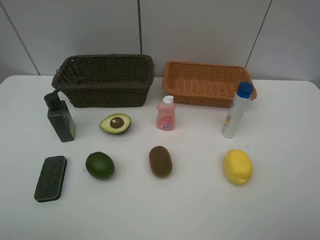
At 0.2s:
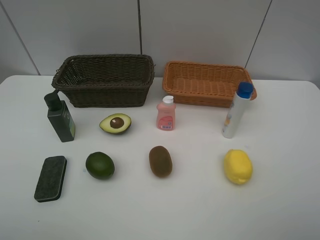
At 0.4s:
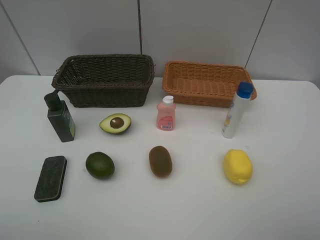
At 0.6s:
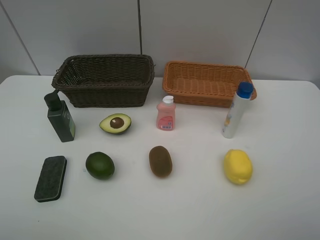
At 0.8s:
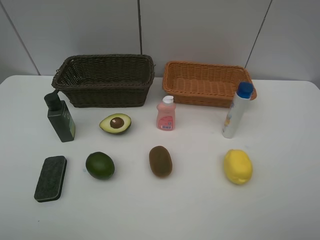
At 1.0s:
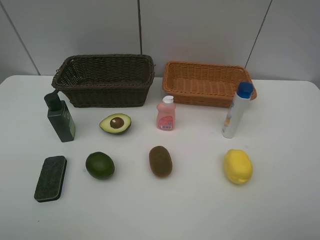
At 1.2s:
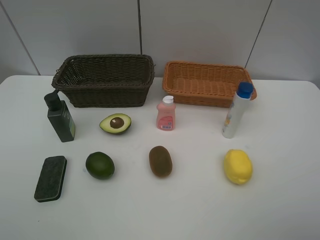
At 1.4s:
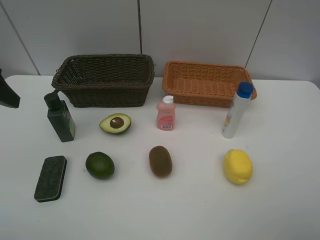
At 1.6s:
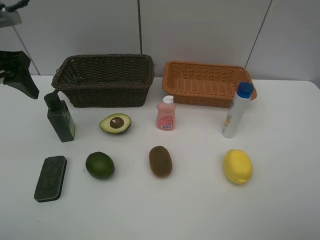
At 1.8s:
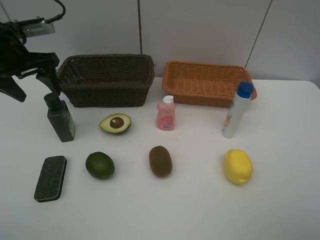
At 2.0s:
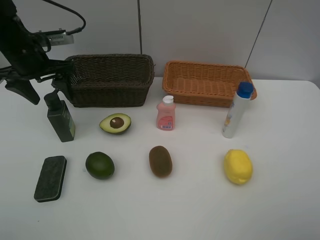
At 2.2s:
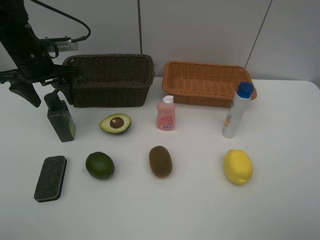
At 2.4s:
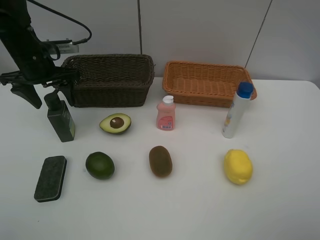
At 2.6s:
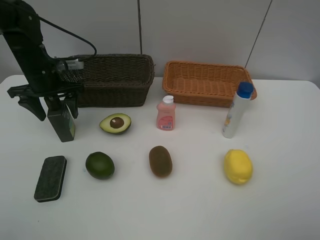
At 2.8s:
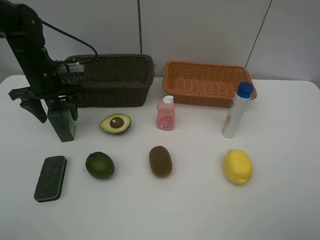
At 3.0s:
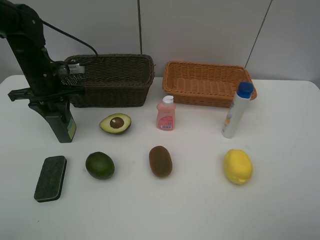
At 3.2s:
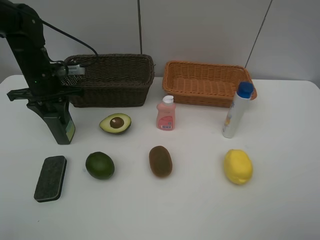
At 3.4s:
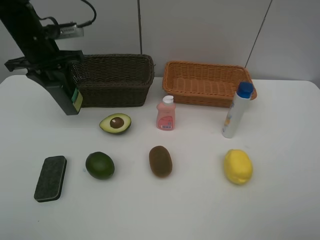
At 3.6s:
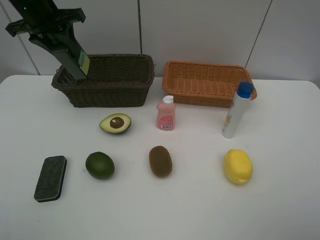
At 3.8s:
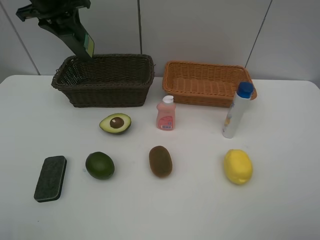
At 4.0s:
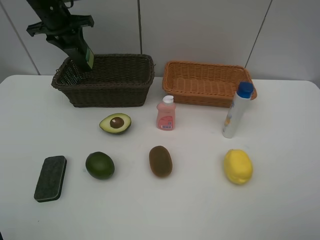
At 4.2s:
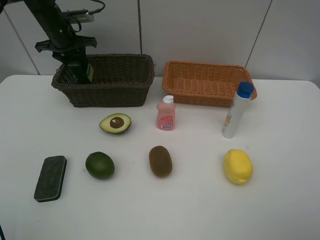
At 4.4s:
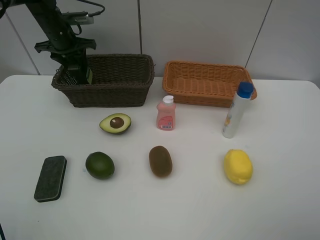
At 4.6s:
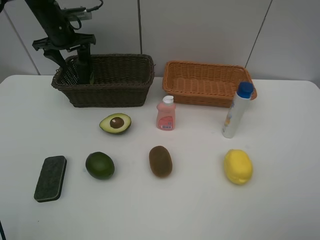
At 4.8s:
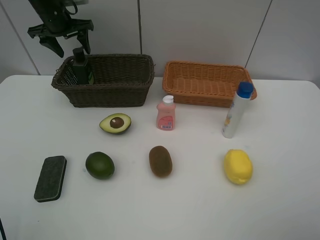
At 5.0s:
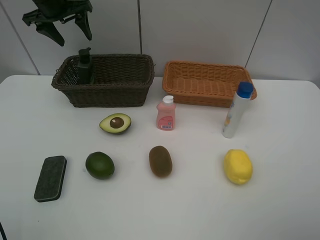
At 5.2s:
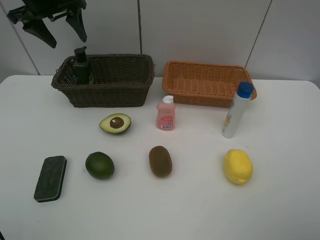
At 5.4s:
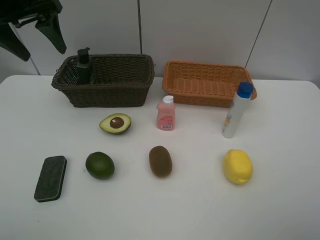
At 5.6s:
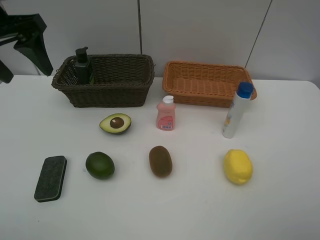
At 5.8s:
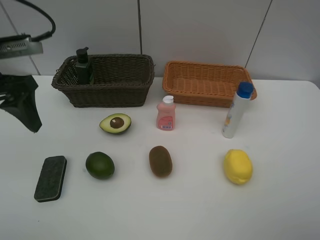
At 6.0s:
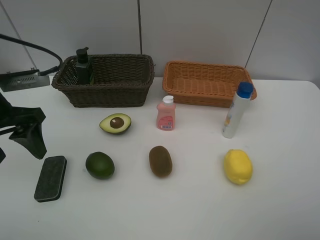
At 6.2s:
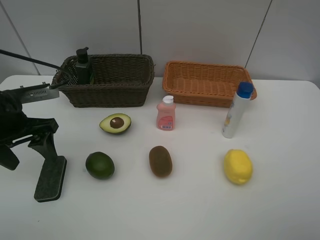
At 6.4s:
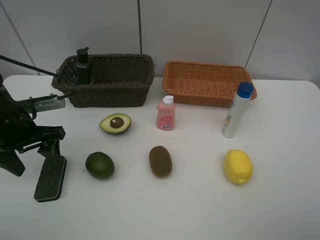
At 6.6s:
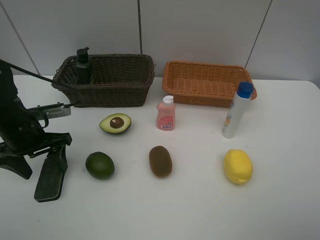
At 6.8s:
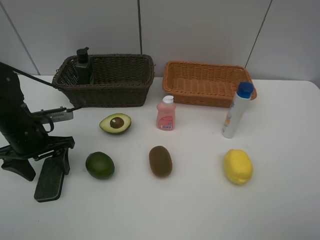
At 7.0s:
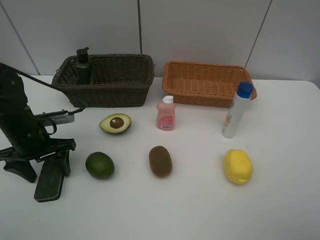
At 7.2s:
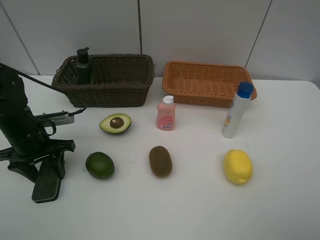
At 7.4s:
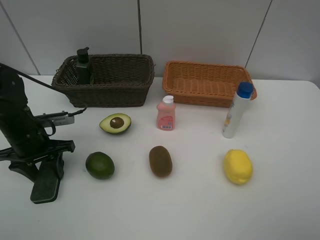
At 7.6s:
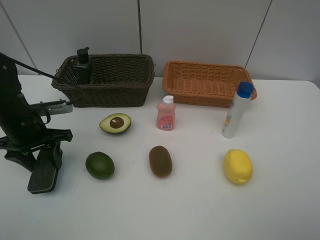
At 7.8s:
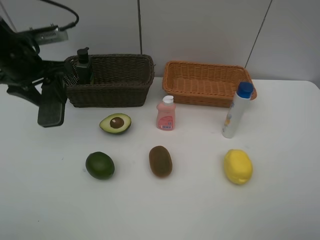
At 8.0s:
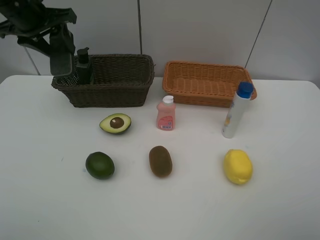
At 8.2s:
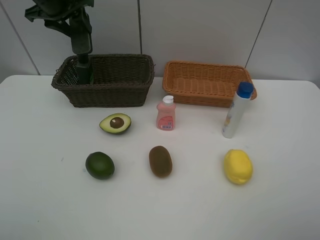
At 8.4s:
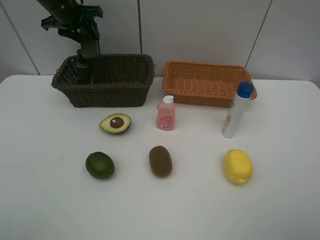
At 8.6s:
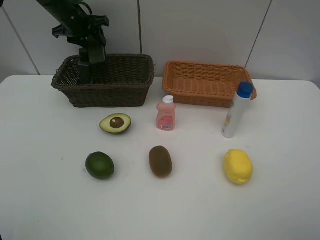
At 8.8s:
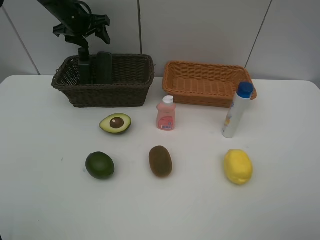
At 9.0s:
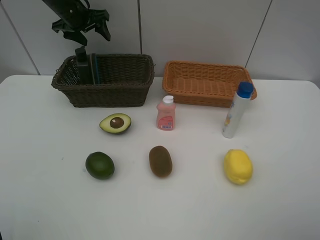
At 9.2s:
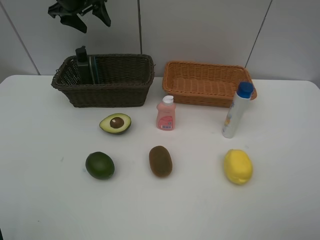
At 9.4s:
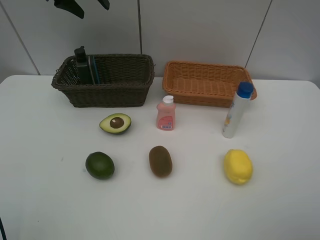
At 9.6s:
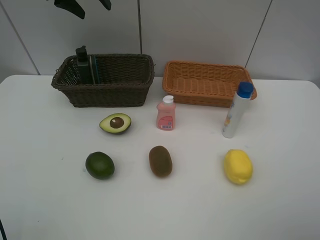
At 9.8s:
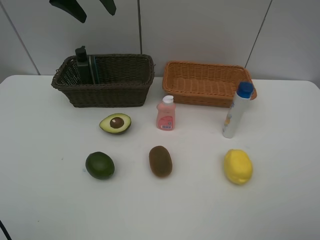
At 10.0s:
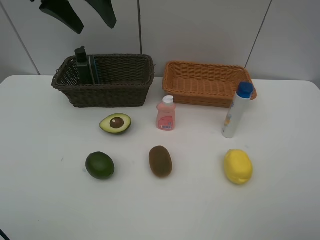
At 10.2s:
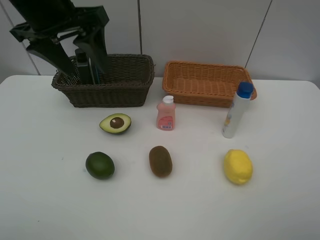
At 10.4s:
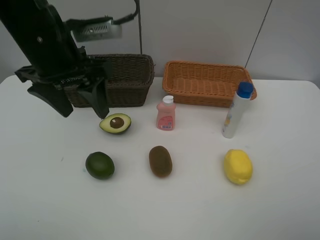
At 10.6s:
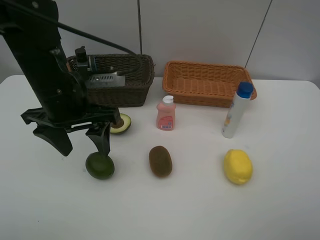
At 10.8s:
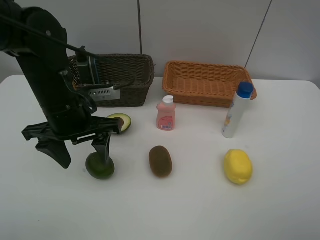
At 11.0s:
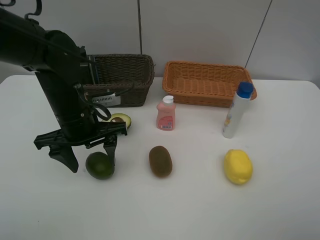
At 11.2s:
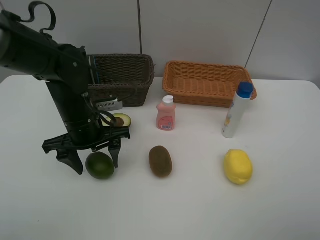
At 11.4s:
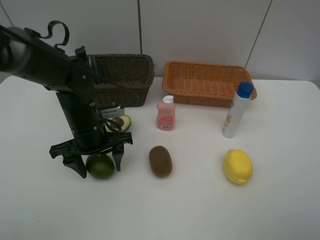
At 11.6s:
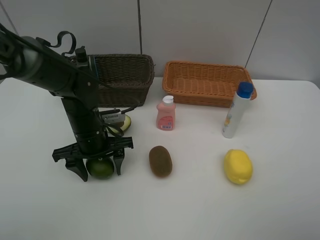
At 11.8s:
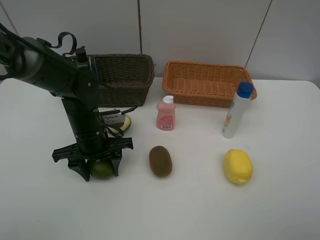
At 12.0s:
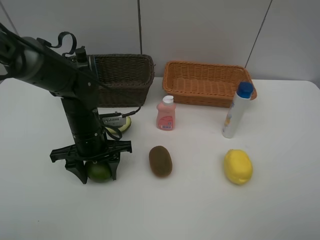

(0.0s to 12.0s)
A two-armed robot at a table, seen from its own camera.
Task of the whole recording: Place multiple objects separately in different baskets.
Step, 0.0s - 3.2s: Pick up the hard facial cleanser with left gripper.
Step, 3.4s - 4.8s: Place the hard facial cleanser in the dark basket with left gripper.
Step, 5.0s - 7.6s: Pick up blackboard eraser with left gripper.
Step, 7.8s - 8.8s: Place the blackboard eraser in the dark basket with left gripper.
0.0s - 1.6s: The left gripper goes roughly 30 cm forward.
1.6s - 3.0s: The left gripper is displaced downward and forward by roughly 15 cm, and closes.
3.0s - 4.4s: The left gripper moves forward, some 15 cm, travels upward and back again, roughly 15 cm each way, and opens.
4.4s - 6.0s: The left gripper is displaced backward by some 30 cm, and opens.
6.0s - 7.6s: The left gripper is displaced downward and forward by roughly 10 cm, and closes.
7.6s - 9.0s: The left gripper moves forward and upward, some 30 cm, and opens its fingers.
9.0s - 10.4s: The left gripper moves backward, some 25 cm.
10.4s - 12.0s: The left gripper travels downward by roughly 15 cm.

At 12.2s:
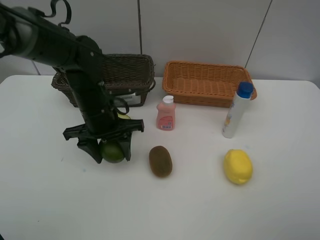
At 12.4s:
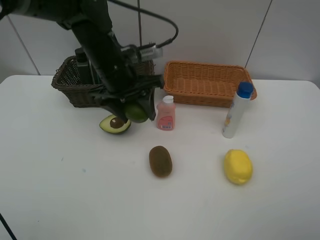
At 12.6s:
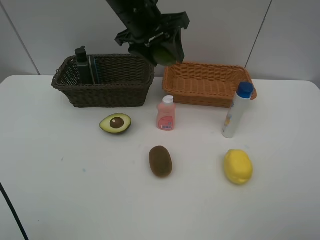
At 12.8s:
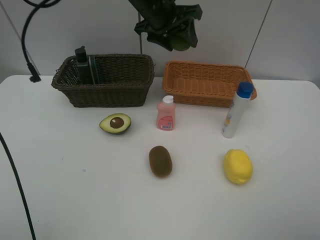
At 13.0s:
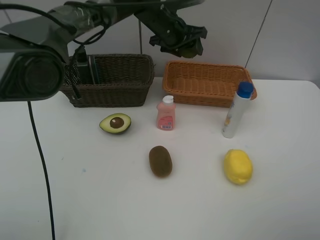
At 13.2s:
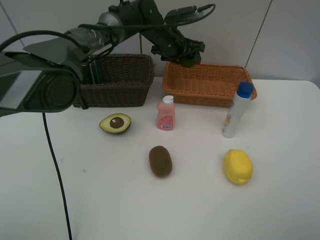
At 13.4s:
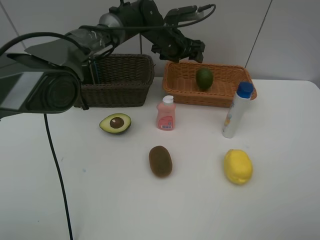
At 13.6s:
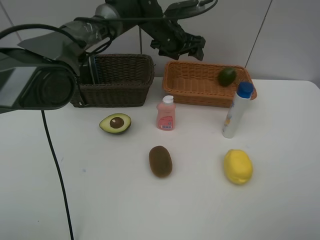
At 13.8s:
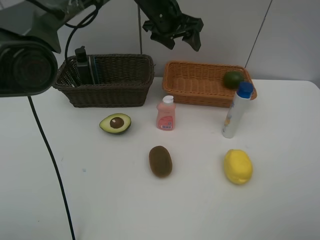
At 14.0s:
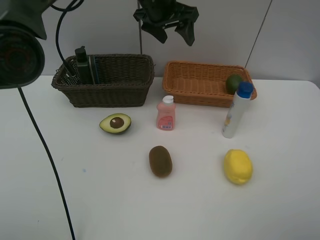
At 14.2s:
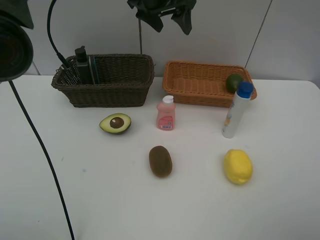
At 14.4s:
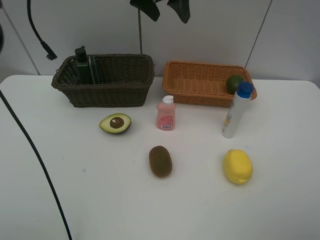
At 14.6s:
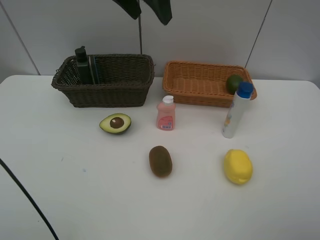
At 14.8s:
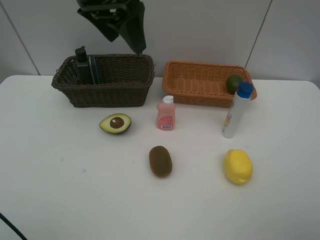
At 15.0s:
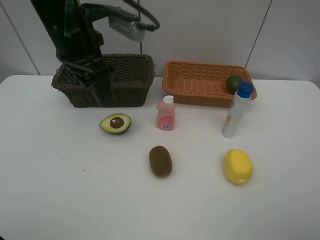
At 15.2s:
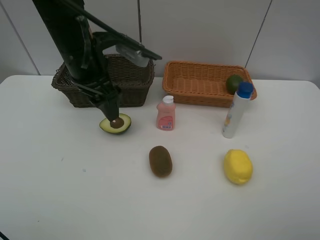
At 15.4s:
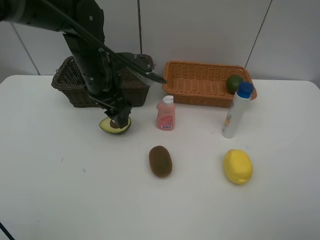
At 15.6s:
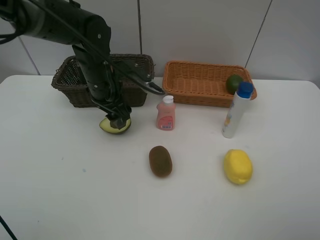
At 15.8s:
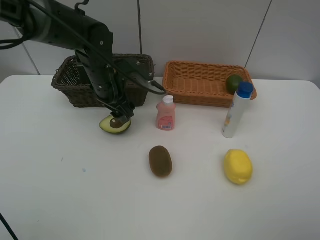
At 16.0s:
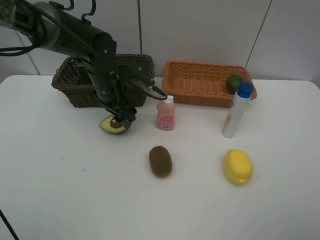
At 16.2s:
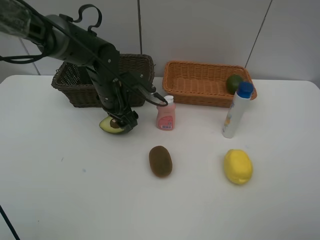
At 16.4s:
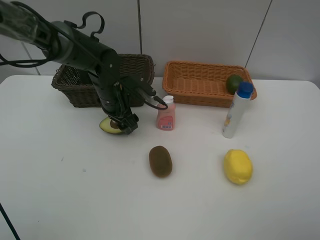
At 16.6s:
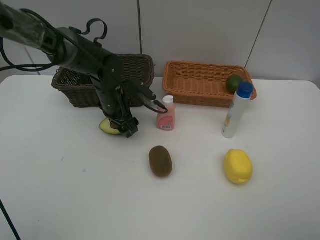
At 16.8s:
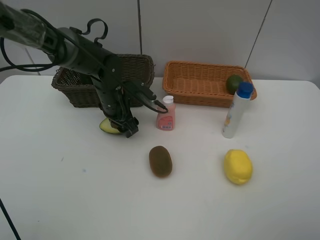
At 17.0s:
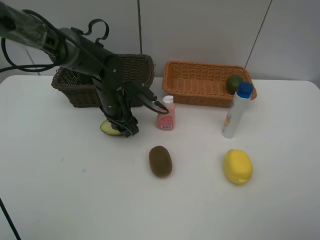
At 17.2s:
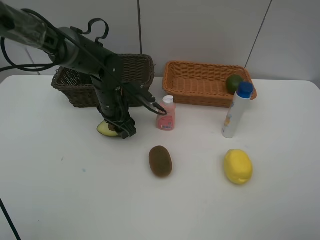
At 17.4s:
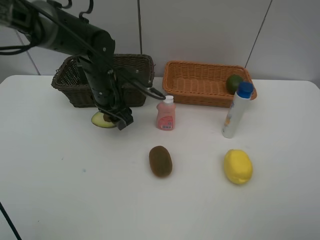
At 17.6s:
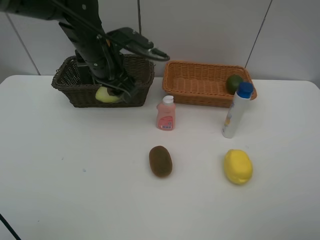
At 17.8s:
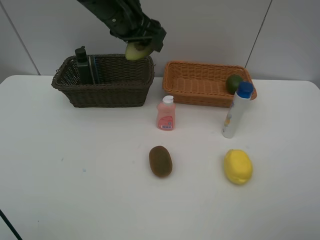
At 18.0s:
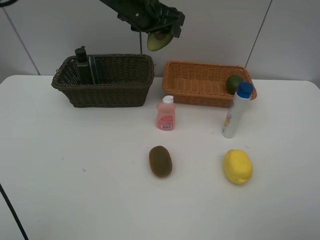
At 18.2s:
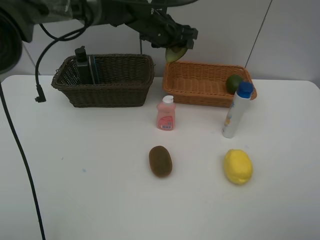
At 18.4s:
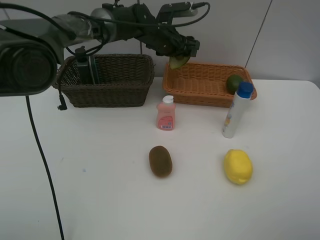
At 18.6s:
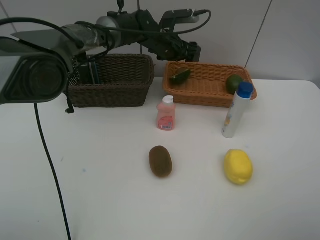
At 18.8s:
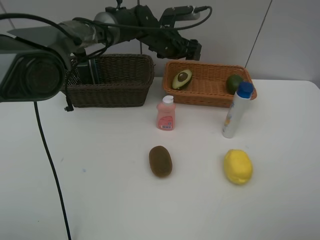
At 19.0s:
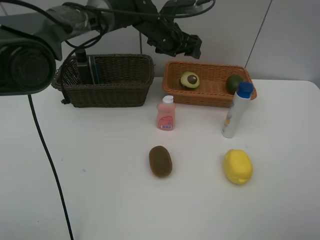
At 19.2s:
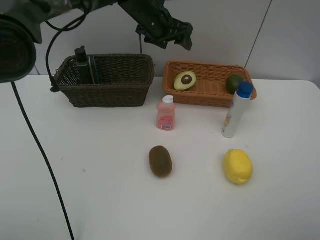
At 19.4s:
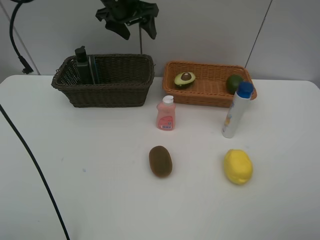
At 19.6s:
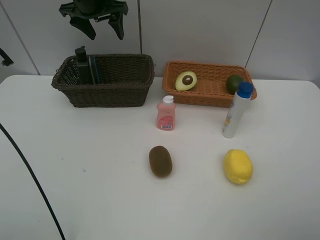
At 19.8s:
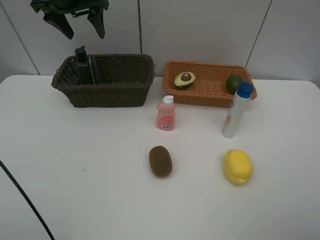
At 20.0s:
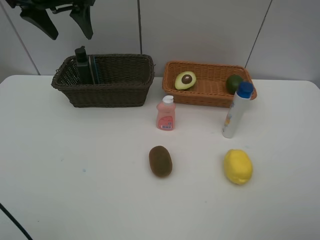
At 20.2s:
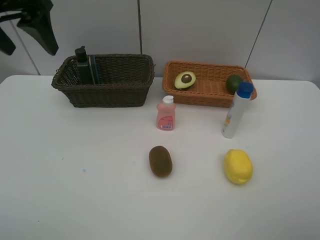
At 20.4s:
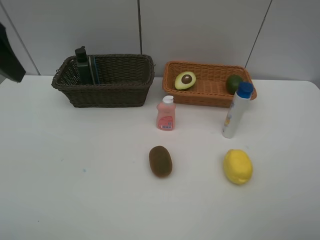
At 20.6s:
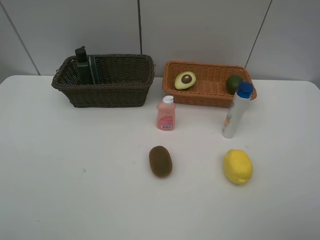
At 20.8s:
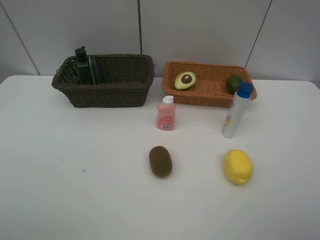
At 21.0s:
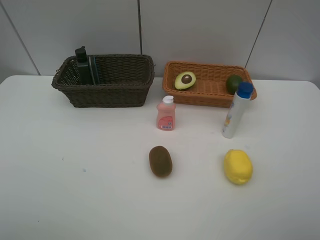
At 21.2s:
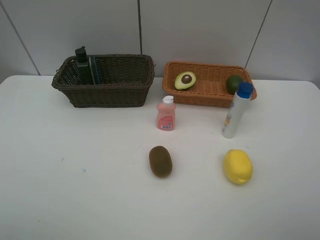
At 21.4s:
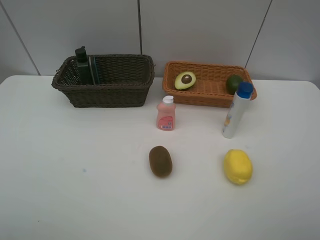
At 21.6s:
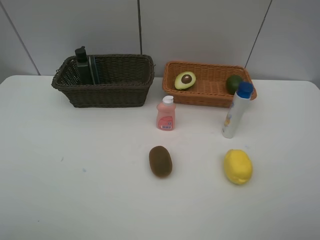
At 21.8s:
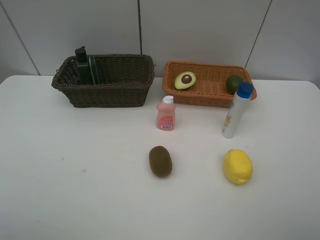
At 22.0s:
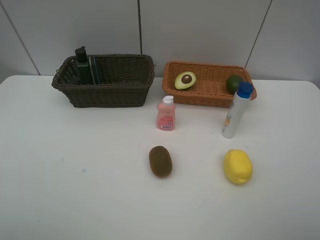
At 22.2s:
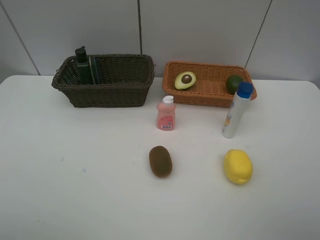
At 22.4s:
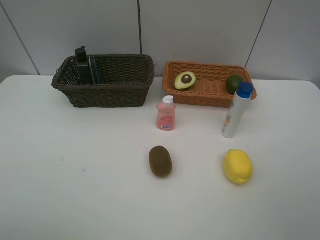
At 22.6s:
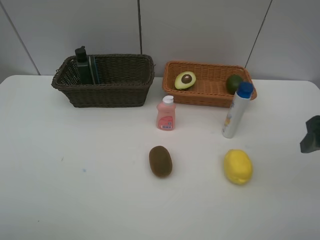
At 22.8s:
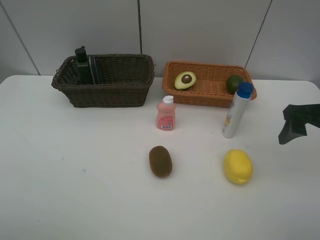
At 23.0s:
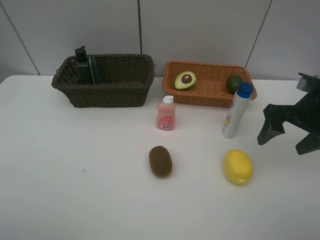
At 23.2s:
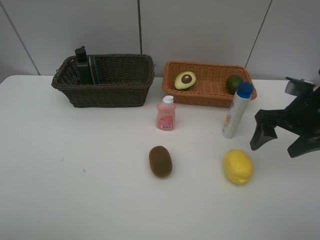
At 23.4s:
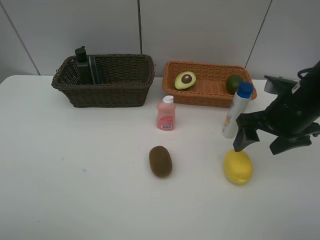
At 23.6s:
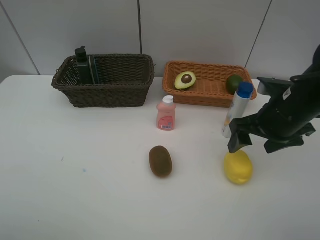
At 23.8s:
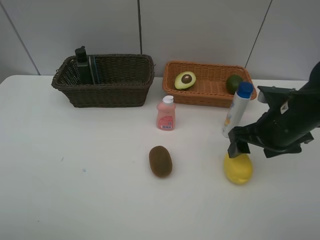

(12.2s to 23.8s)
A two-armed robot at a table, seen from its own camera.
Task of the whole recording: Place multiple objects separately in different baskets.
Step, 12.2s - 13.4s: Place the lime in the light basket with left gripper.
Step, 13.6s - 17.4s: Pick up the avocado with left gripper.
Step, 17.6s - 18.6s: Place the avocado in the light basket with left gripper.
12.2s - 13.6s: The left gripper shifts about 25 cm forward and to the right, and opens its fingers.
13.6s - 15.0s: The left gripper heads backward and to the left, covering approximately 25 cm.
15.0s - 16.6s: The left gripper shifts about 20 cm downward.
16.6s - 18.0s: The left gripper shifts some 15 cm upward, and closes its fingers.
18.0s - 19.4s: The left gripper is displaced to the left and forward by about 10 cm, and opens its fingers.
19.4s - 21.0s: The left gripper shifts about 50 cm backward.
22.4s - 23.8s: The right gripper moves forward, downward and to the left, some 20 cm.
